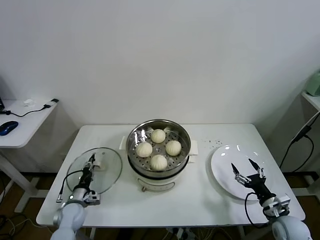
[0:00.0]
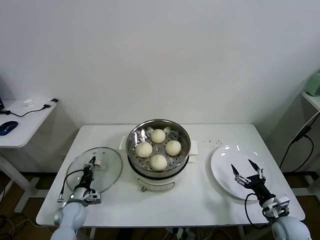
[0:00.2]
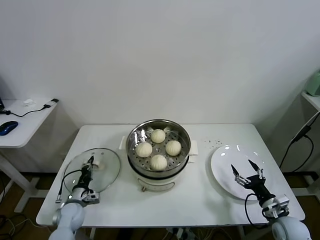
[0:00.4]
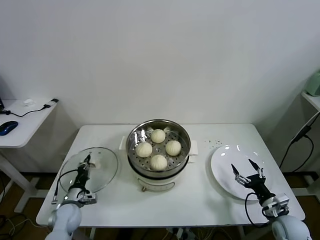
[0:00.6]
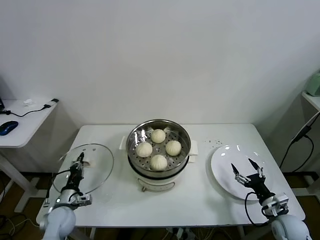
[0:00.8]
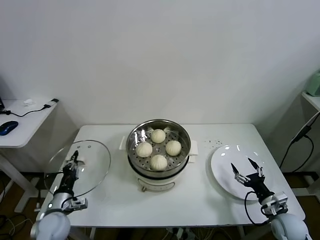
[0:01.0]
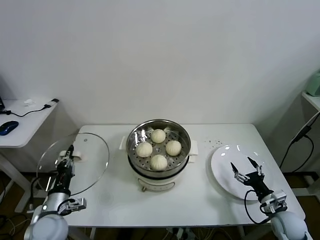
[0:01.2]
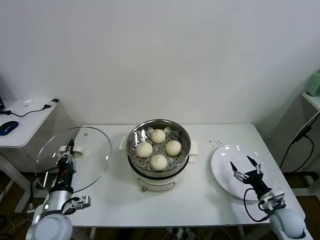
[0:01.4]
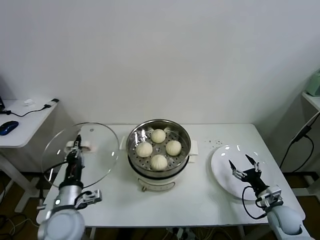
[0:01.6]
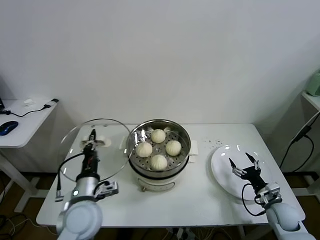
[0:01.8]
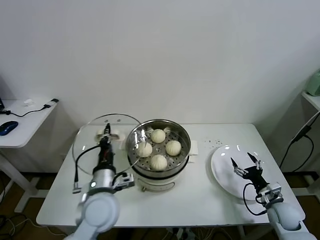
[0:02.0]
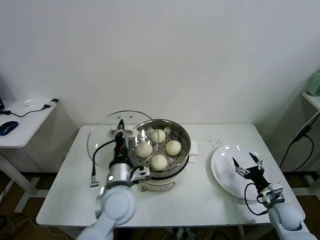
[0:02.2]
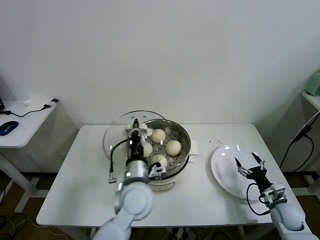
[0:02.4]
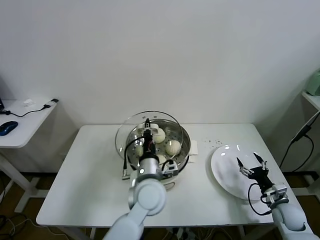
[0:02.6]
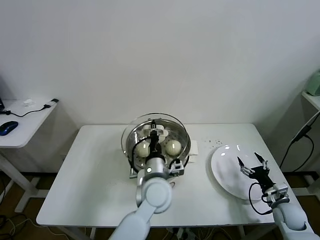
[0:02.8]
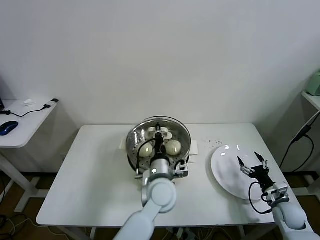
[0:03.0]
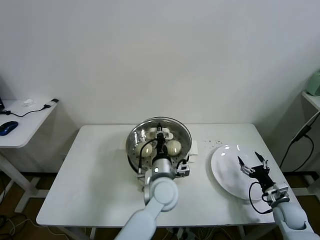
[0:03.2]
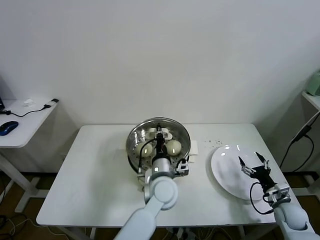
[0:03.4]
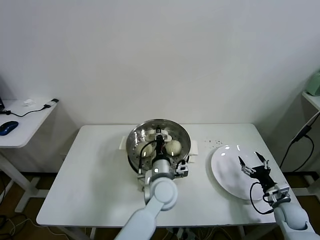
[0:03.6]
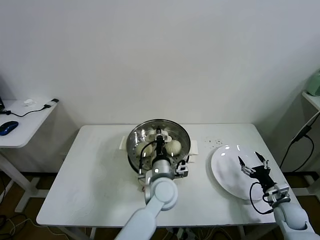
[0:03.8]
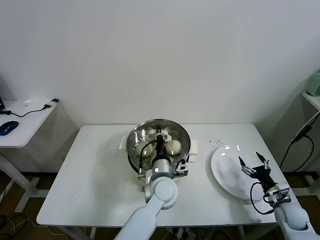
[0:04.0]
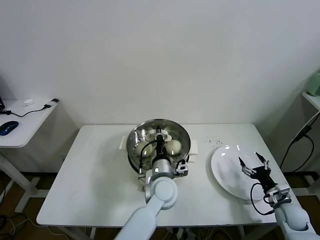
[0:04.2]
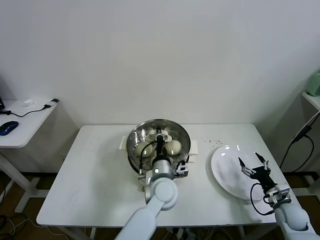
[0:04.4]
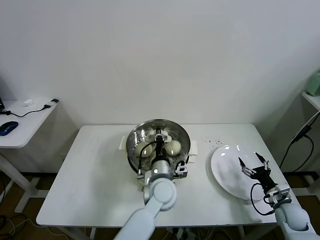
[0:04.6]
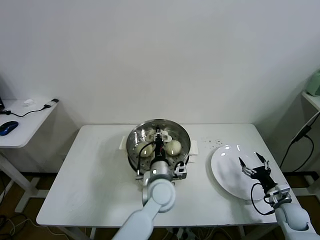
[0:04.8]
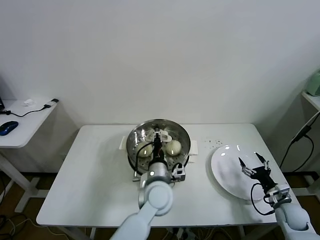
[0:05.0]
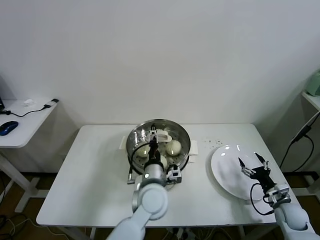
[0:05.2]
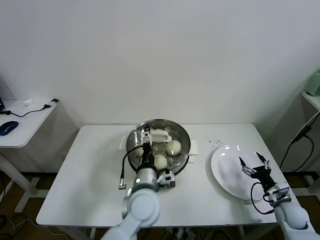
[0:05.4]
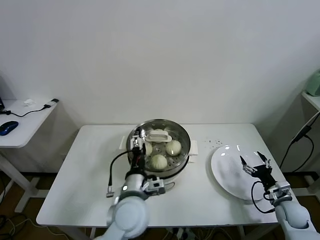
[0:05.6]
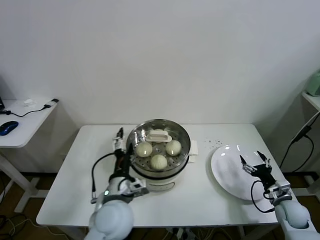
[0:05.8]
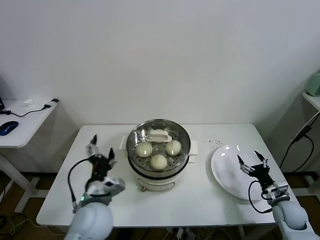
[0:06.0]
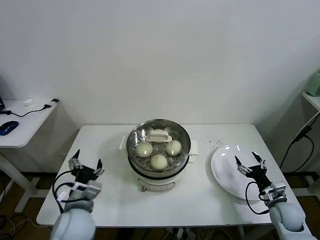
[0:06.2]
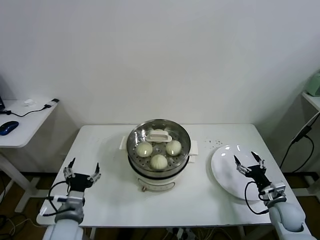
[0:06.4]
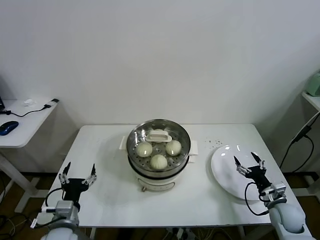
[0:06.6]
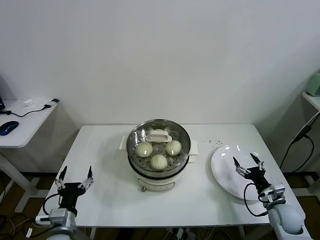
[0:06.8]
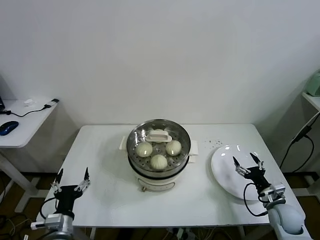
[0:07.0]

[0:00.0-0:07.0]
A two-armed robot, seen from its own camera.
Task of the whole recording: take steamed baozi put them in steamer.
Step, 0:00.6 to 0:05.2: Place the pot lid on the steamer with left gripper.
0:00.0 to 0:01.4: The left gripper heads upward and backward, covering approximately 20 cm, and closes up.
0:01.4 to 0:02.8: The left gripper travels to the right by about 30 cm.
0:02.8 to 0:04.2: The left gripper changes place by about 5 cm.
0:04.2 to 0:05.6: The left gripper shifts approximately 10 cm backward and to the left, and opens up.
0:05.6 to 0:07.0: The left gripper moves to the left and downward, some 25 cm.

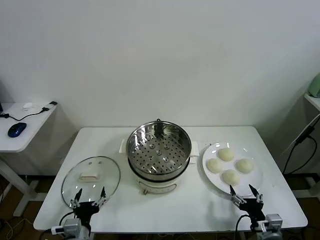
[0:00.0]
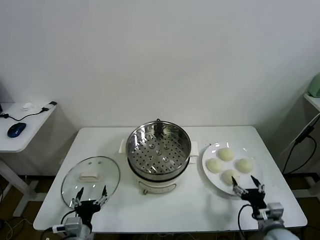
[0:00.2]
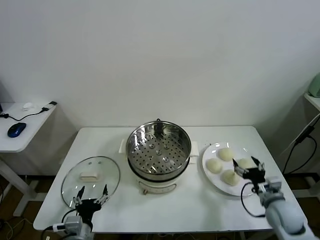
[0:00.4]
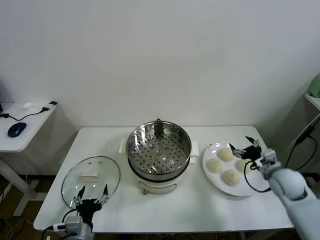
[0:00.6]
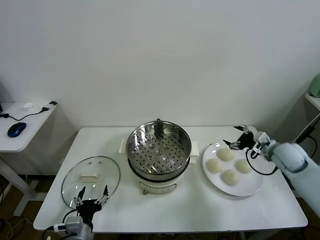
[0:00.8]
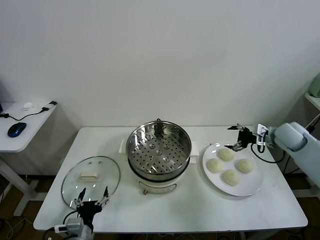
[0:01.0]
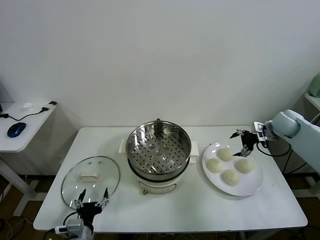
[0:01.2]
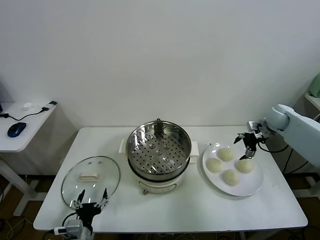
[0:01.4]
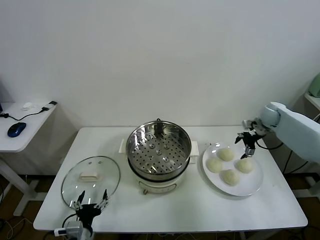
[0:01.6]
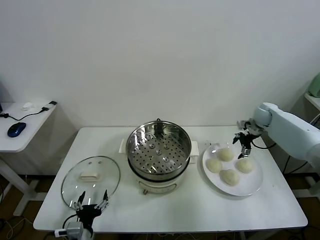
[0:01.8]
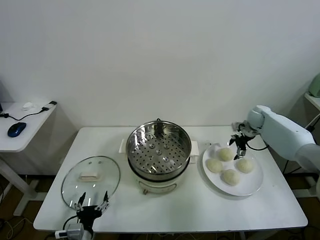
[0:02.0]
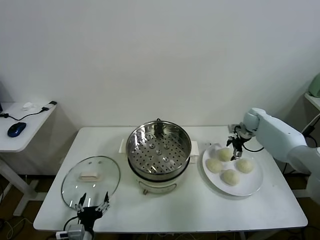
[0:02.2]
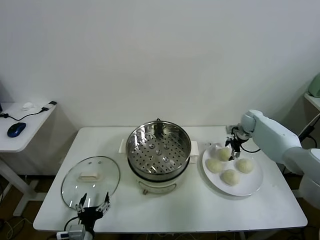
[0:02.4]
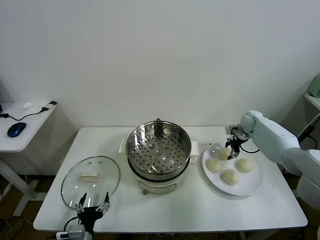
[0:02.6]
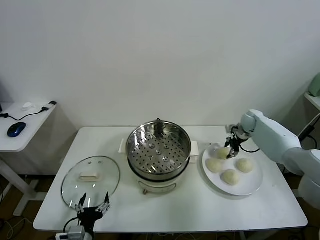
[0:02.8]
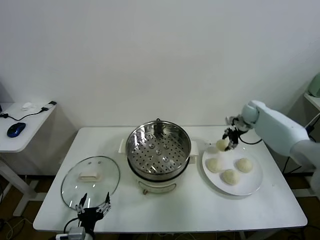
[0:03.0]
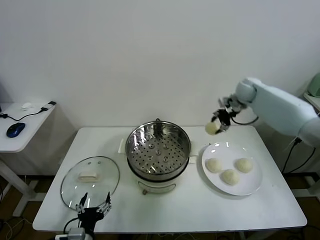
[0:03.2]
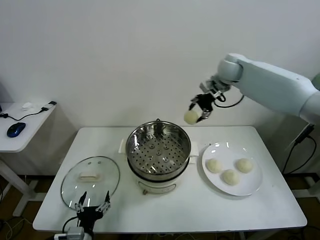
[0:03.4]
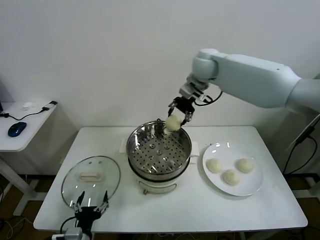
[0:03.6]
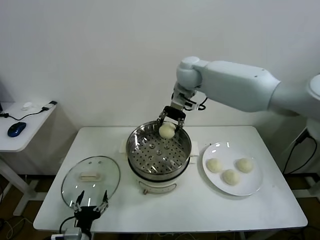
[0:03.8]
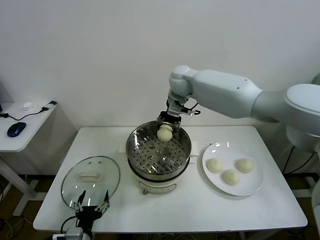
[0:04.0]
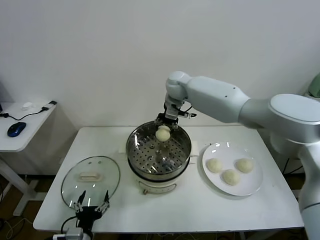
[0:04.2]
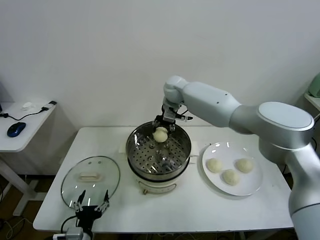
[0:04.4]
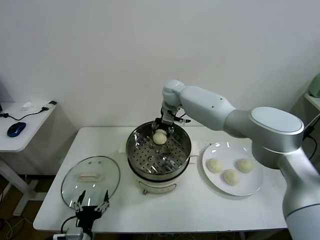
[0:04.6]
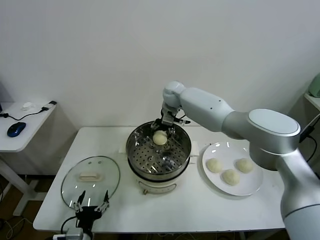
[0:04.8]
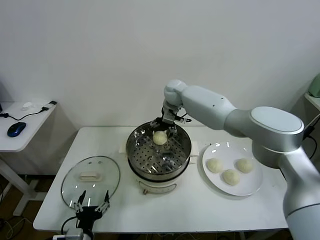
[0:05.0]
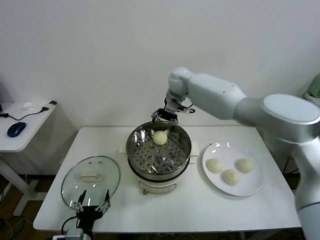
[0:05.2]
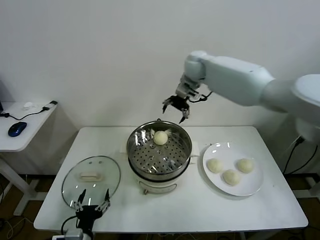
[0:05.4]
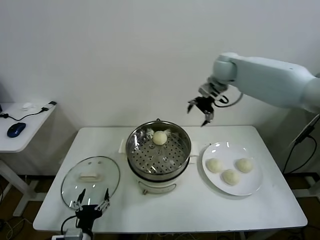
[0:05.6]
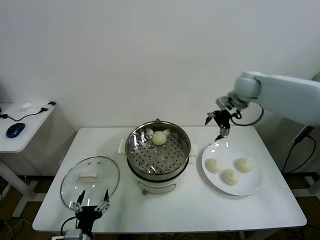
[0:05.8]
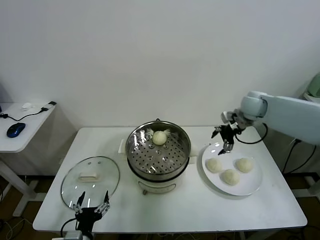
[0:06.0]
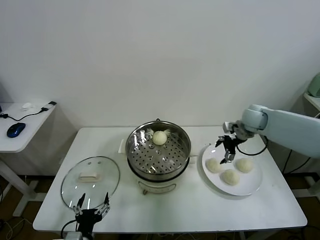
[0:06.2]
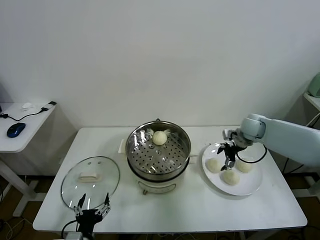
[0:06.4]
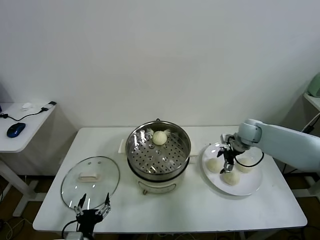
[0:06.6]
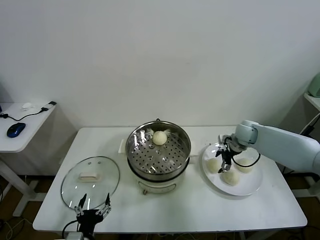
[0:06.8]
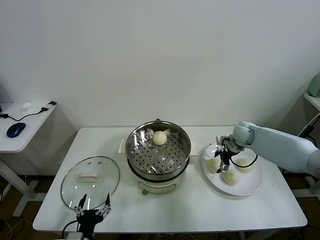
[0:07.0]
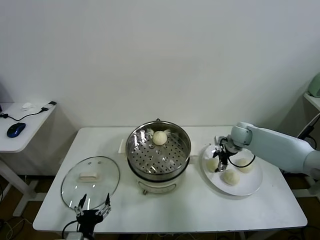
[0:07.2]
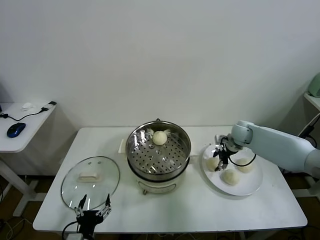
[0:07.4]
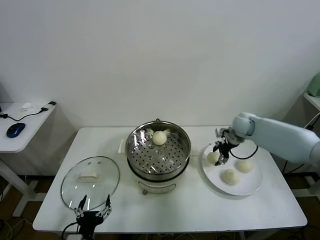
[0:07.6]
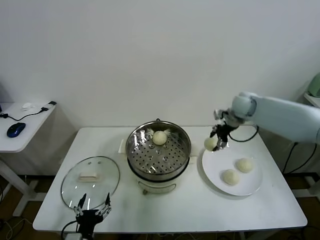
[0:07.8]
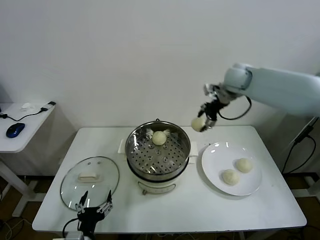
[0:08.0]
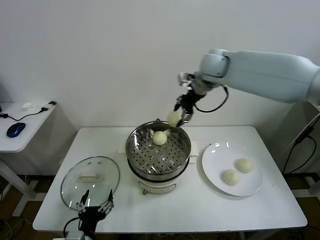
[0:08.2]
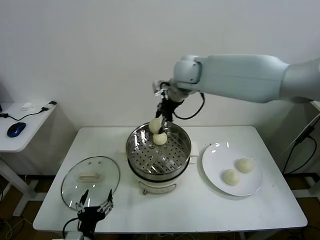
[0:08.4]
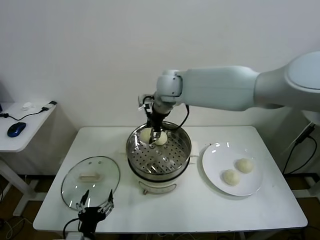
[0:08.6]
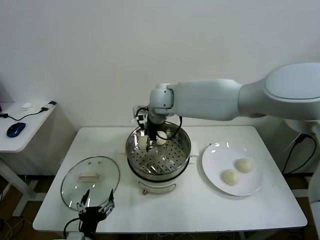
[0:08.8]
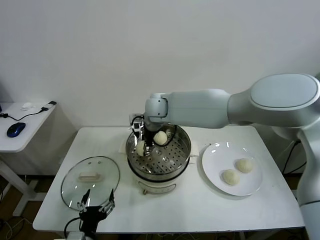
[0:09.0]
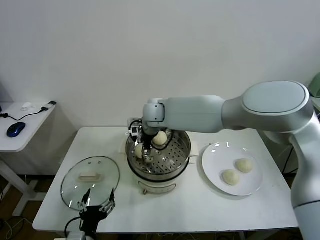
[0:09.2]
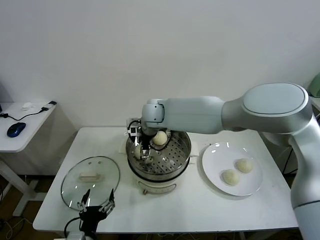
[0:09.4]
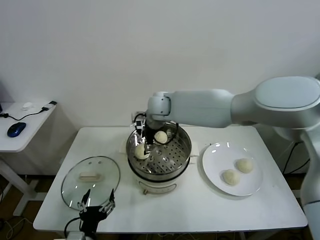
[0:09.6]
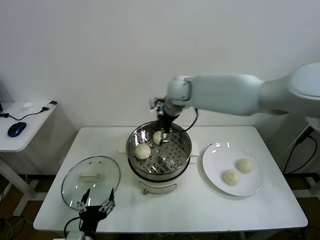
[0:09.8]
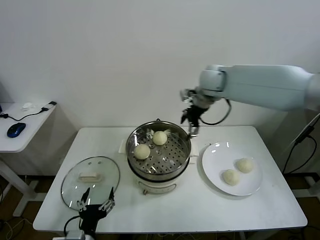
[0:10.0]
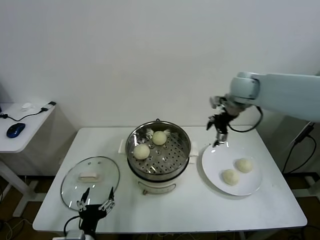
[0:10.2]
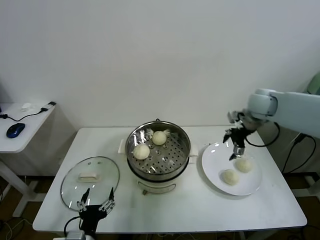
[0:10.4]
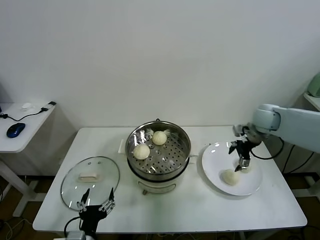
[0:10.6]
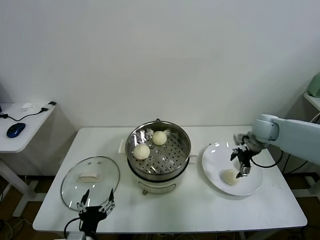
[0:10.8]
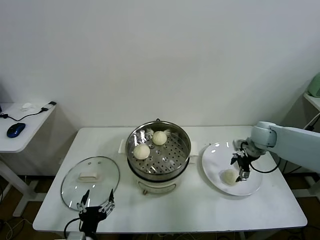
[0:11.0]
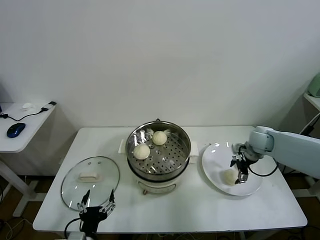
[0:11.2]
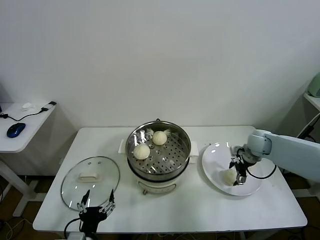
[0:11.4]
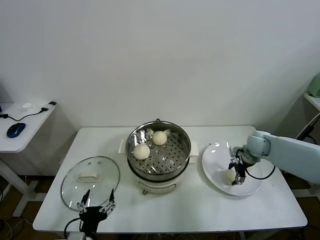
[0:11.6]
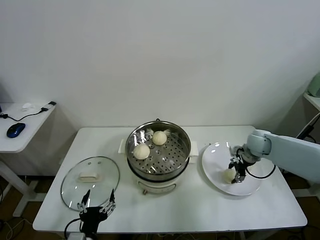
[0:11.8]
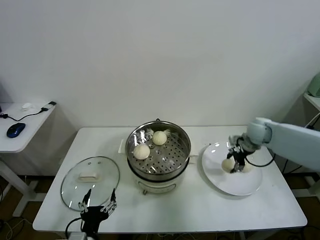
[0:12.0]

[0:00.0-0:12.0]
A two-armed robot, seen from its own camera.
Task of the whole recording: take steamed baozi put them in steamer.
Step, 0:00.0 to 0:02.6: Grasp the baozi in the plate with right gripper.
Step, 0:02.8 to 0:05.0: Place the baozi on the steamer with right gripper.
Step, 0:05.2 to 0:07.2: Grasp the baozi in the plate with right gripper.
Step, 0:07.6 to 0:09.4: Place the baozi on the steamer with right gripper.
Step, 0:09.8 to 0:11.6: Grasp the baozi in the plate with right gripper.
0:01.6 to 0:03.0: The right gripper travels to the left and upward by roughly 10 cm, and closes.
0:03.0 to 0:04.4: The right gripper moves to the left, approximately 30 cm.
0:04.4 to 0:06.0: The right gripper shifts some 30 cm to the right, and opens its fingers.
0:06.0 to 0:07.6: The right gripper travels downward and back again, approximately 10 cm each way, and closes up.
0:07.6 to 0:09.0: The right gripper shifts about 35 cm to the left.
0:09.0 to 0:10.4: The right gripper is displaced to the right by approximately 35 cm, and opens its fingers.
0:10.4 to 0:12.0: The right gripper moves downward, some 5 cm, and closes.

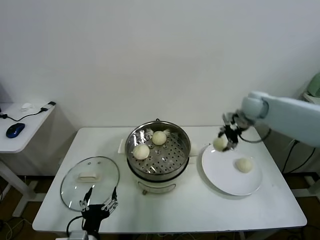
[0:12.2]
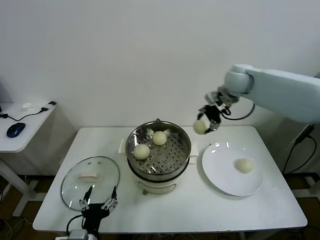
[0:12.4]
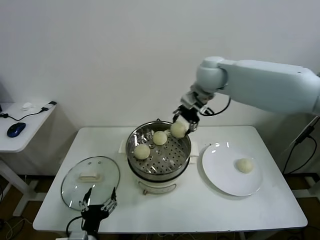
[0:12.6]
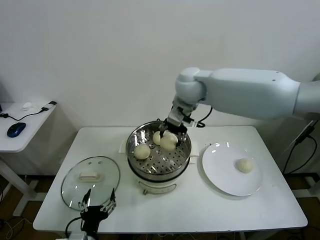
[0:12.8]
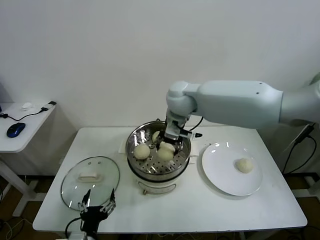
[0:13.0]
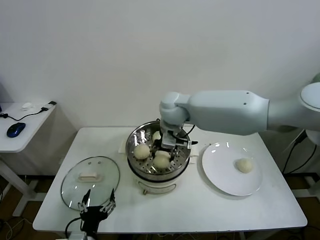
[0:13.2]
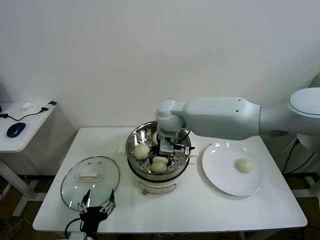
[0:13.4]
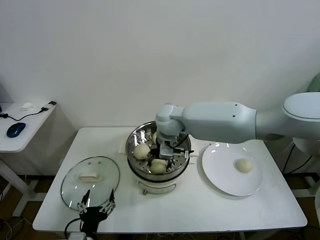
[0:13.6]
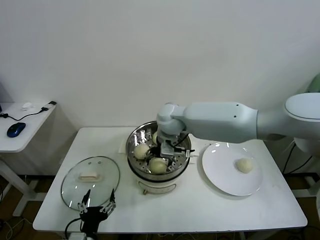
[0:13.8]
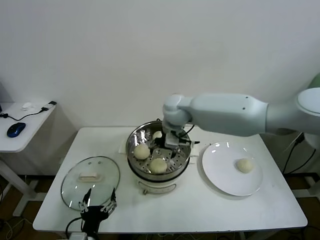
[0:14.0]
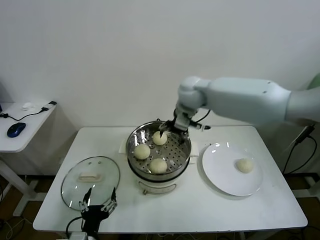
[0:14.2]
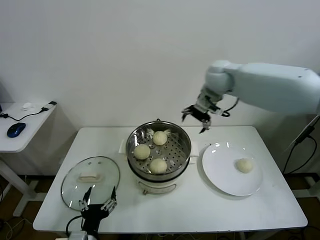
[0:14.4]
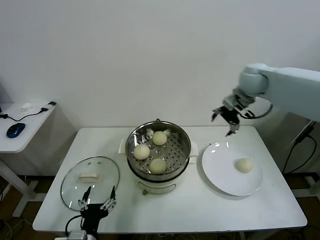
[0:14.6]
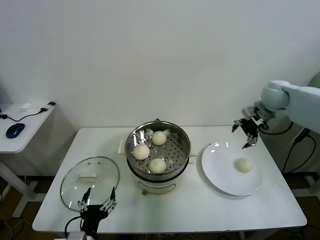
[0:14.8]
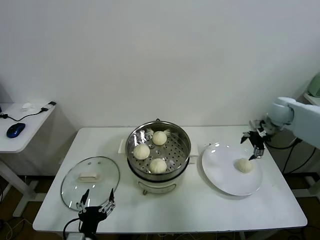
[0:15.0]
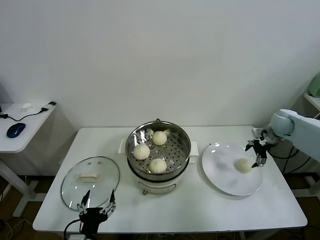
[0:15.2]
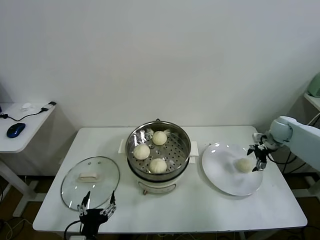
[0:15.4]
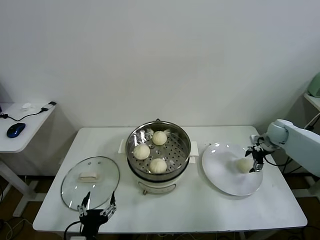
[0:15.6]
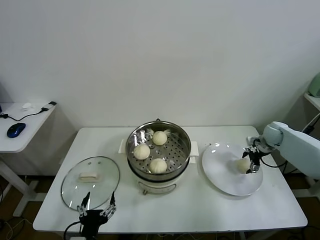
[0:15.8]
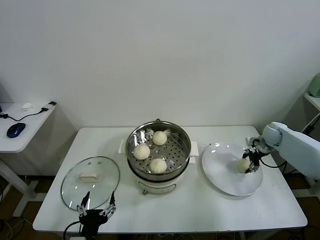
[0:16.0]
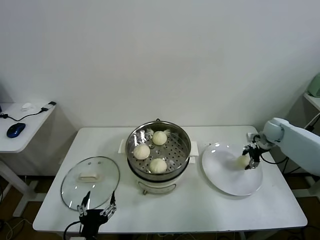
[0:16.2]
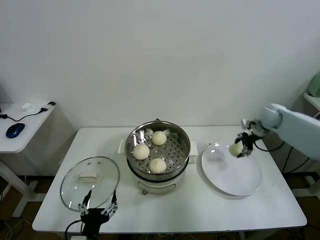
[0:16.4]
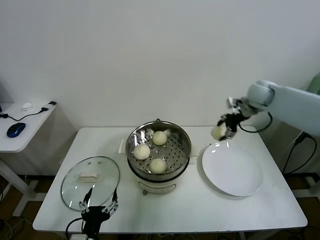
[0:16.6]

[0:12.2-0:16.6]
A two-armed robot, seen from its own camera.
Task of the whole recording: take steamed baozi put them in steamer.
Step, 0:12.2 to 0:13.8: Place the baozi on the steamer with right gripper.
Step, 0:14.0 to 0:15.8: Grasp the baozi in the plate with right gripper.
0:12.2 to 0:13.6: The right gripper is displaced to the left by roughly 25 cm, and opens.
0:13.6 to 0:15.2: The right gripper heads to the right, covering some 40 cm.
0:15.2 to 0:16.6: The right gripper shifts roughly 20 cm to the left and upward, and closes its fingers.
